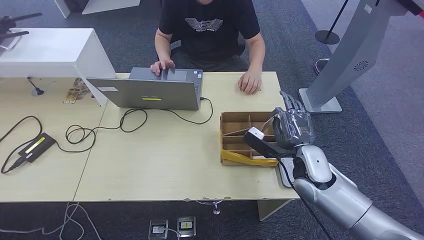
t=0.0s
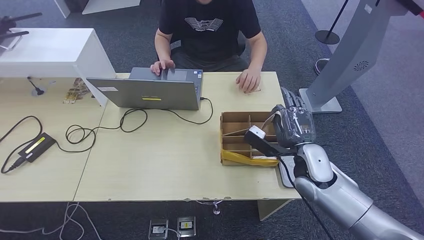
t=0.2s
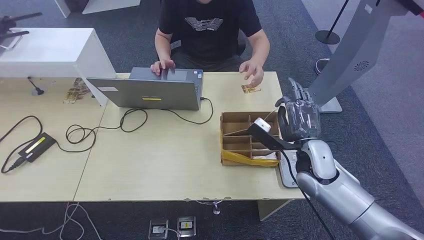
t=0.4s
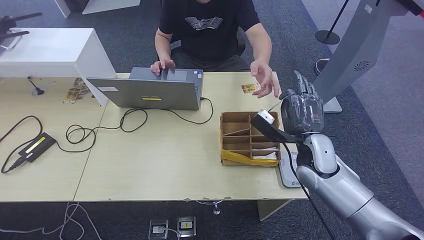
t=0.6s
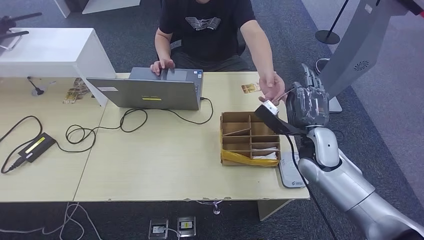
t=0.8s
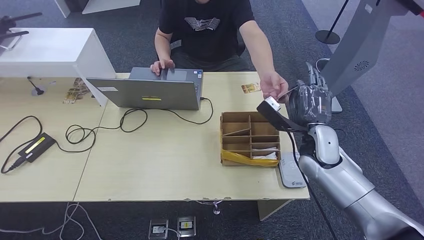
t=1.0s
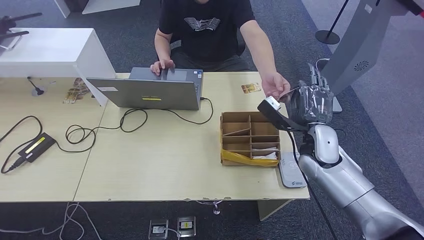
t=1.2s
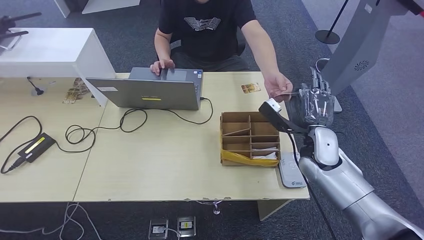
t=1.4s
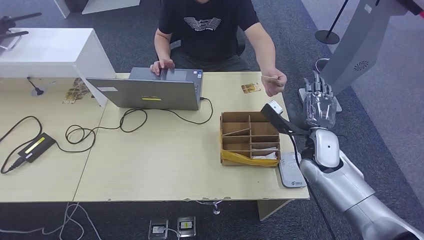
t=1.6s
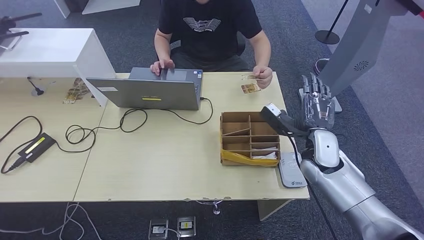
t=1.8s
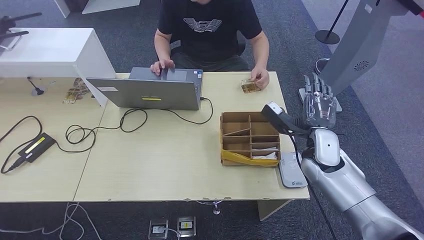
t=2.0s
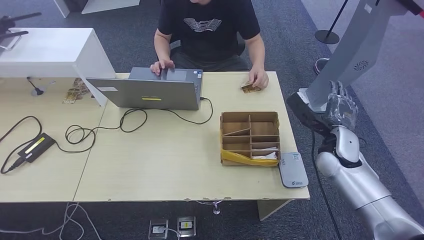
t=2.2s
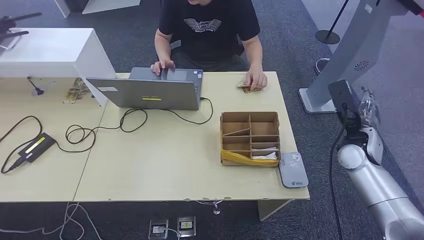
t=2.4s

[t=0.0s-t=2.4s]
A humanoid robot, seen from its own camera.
Step, t=0.4s to t=2.2s: Hand the room key to the person.
t=0.0s to t=1.2s: The right hand ends up about 5 cm from where it was.
t=1.2s to t=2.4s: The right hand shifts about 10 cm to the right.
